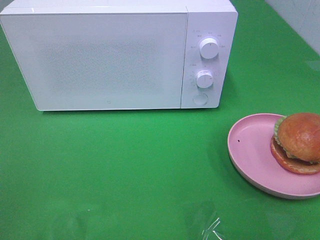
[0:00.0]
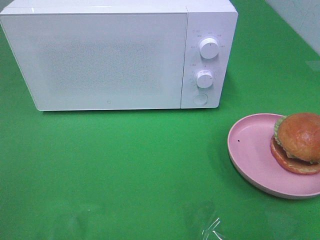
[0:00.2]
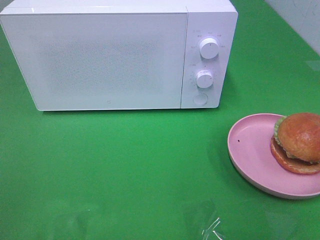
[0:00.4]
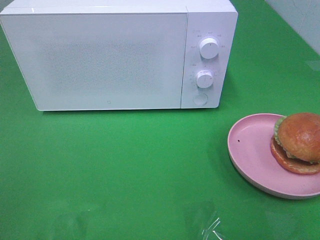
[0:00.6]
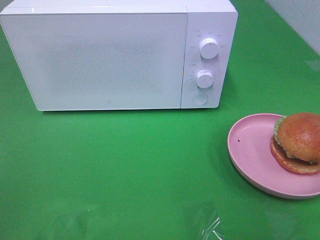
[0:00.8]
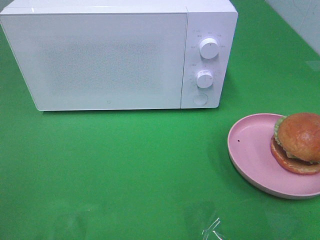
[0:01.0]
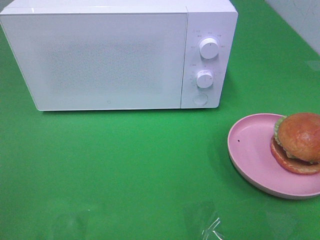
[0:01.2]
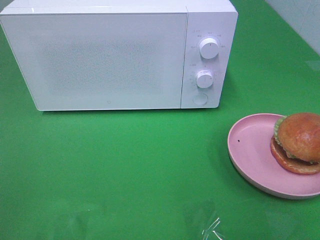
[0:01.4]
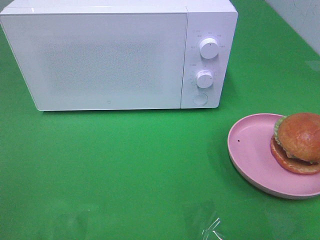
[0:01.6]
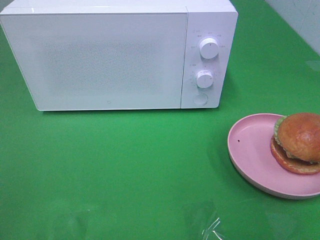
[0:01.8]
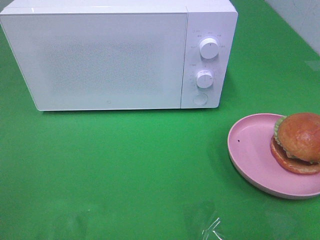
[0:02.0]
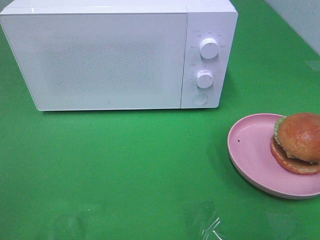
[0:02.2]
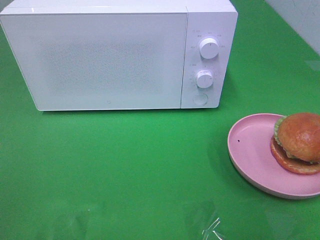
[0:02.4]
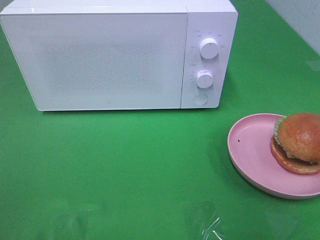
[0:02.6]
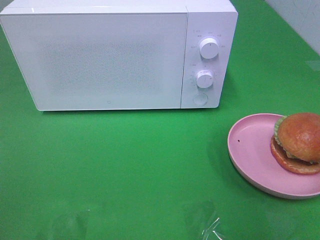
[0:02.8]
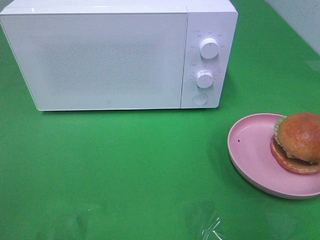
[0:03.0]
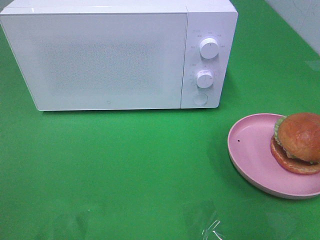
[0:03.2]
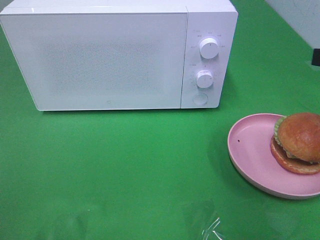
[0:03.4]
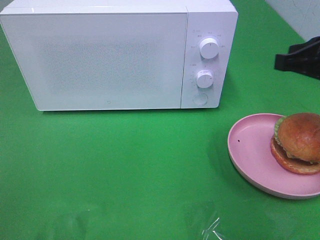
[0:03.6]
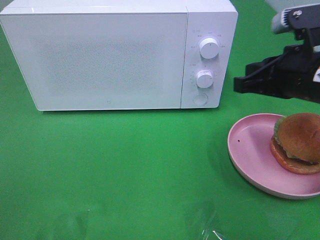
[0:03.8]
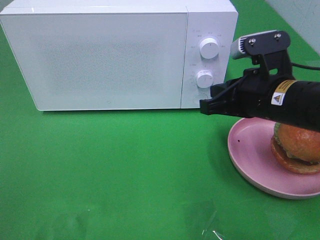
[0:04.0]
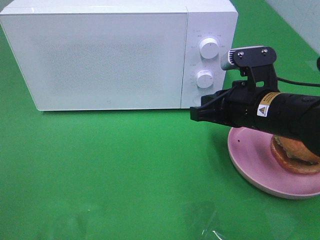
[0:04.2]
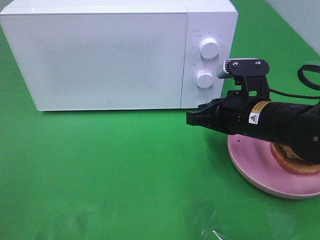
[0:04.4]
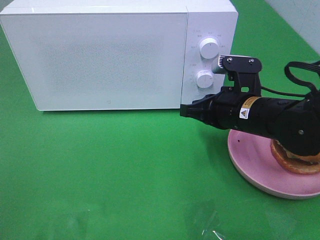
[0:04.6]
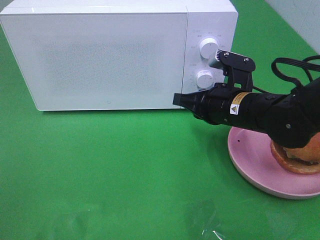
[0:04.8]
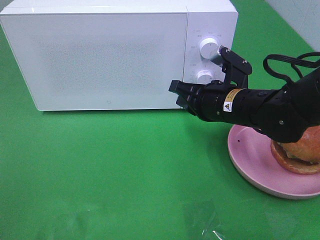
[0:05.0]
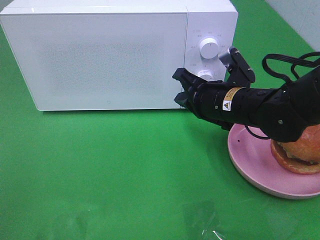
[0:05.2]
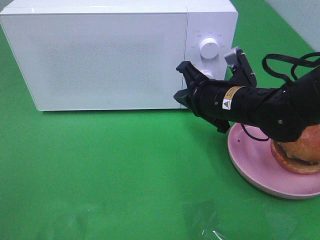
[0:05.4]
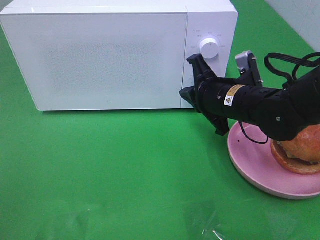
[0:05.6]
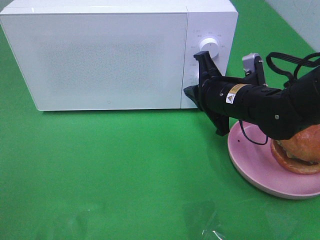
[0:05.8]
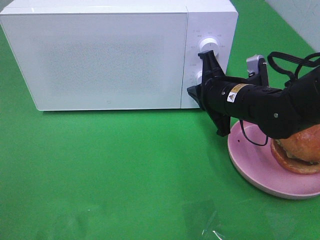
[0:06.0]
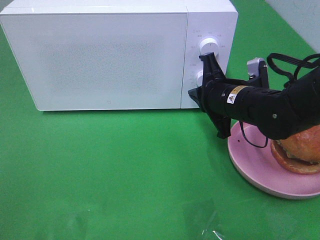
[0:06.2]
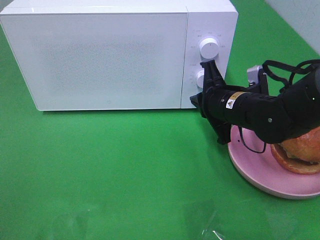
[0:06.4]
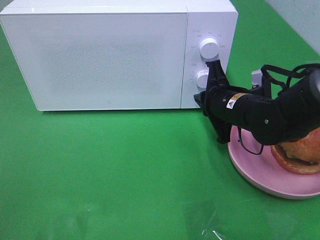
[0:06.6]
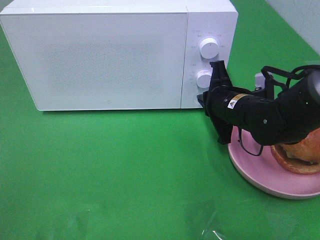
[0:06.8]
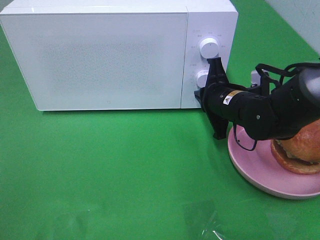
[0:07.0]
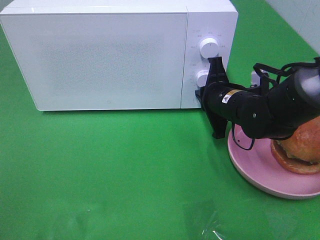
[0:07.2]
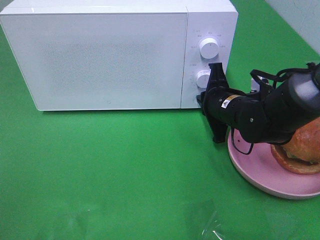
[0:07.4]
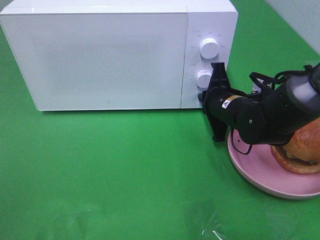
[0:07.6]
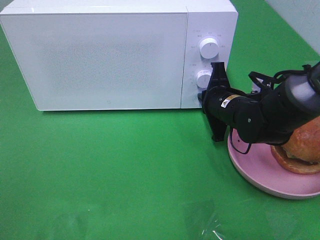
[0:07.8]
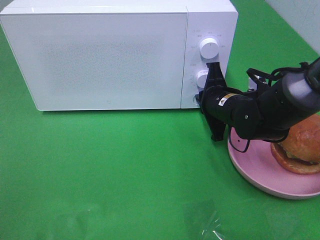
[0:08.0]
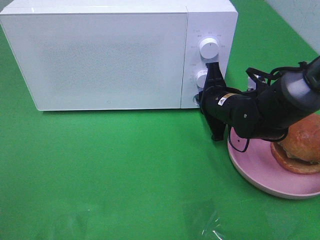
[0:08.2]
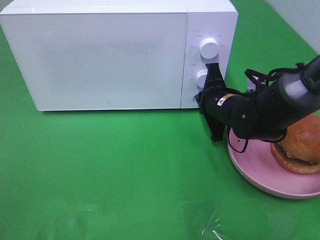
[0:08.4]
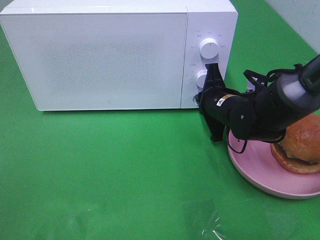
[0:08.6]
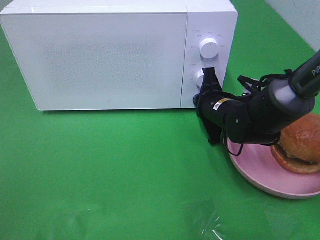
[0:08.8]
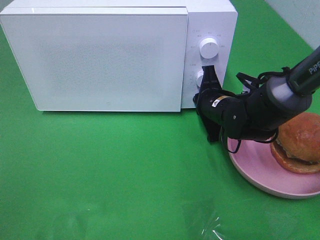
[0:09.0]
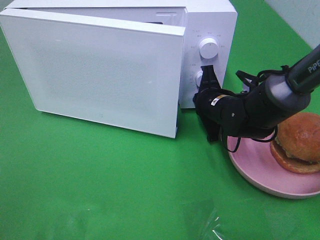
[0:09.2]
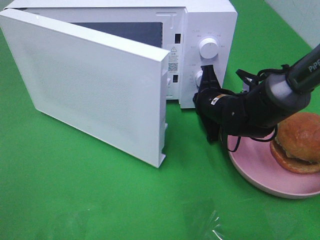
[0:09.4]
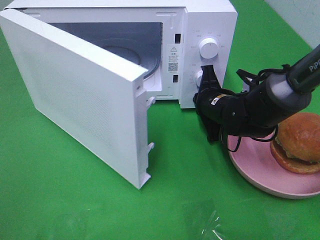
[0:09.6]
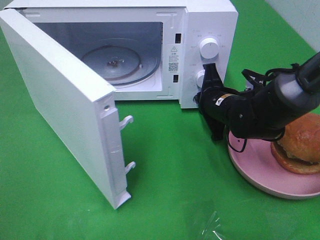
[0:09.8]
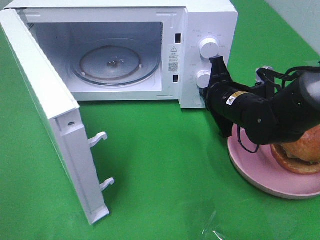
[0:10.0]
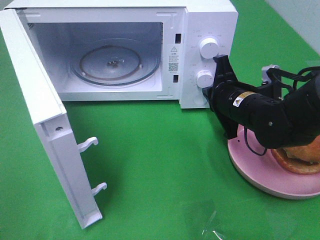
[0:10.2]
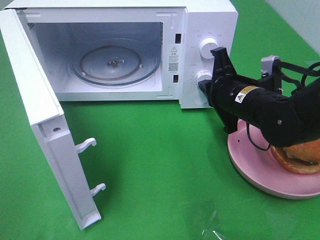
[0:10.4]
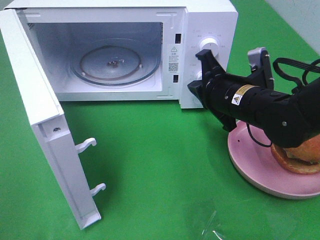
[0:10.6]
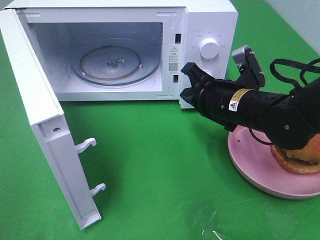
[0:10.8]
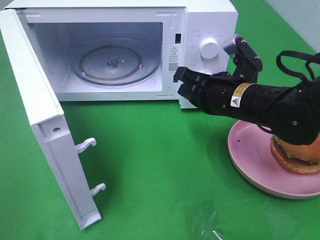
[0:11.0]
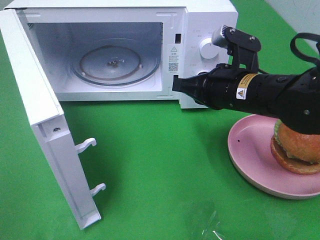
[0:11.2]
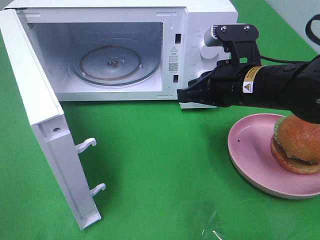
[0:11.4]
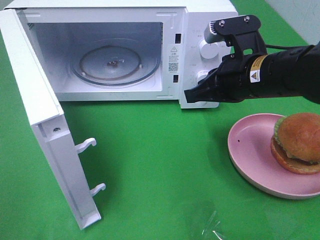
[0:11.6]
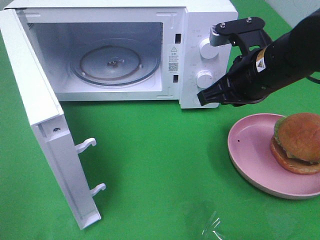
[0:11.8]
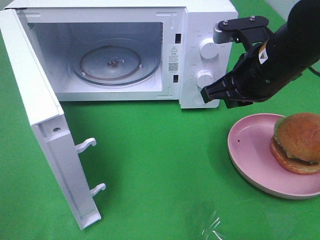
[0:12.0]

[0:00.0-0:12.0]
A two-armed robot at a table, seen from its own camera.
Task of the whole recording: Heat the burger.
Step, 0:00.0 to 0:10.4: Right hand: press the switch.
0:00.0 to 0:01.6: Both grippers stay about where they are.
0:03.0 to 0:04.4: The right gripper moves downward, to the left and forward, roughly 25 cm.
0:04.4 to 0:06.0: The right gripper moves about 5 cm.
0:06.0 to 0:07.6: The grippers stay close to where they were, moving slightly.
0:07.6 to 0:09.0: The grippers move only a little.
0:09.0 to 0:10.4: The right gripper travels upward and backward by roughly 10 cm.
0:10.4 to 0:12.0: The right gripper is displaced upward by roughly 10 cm.

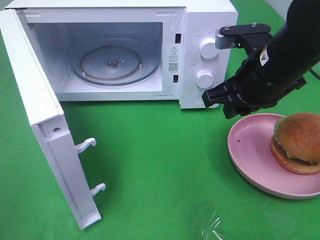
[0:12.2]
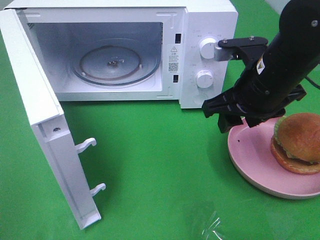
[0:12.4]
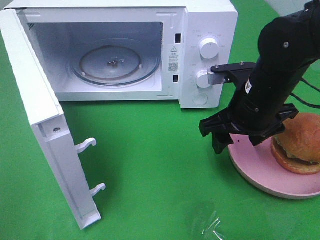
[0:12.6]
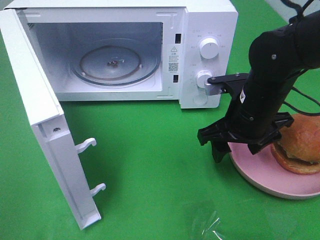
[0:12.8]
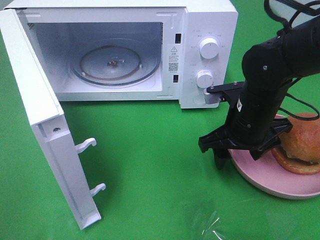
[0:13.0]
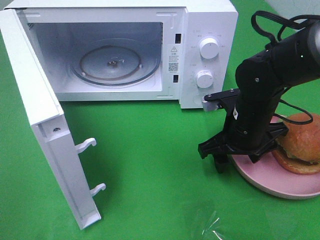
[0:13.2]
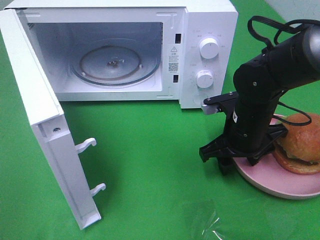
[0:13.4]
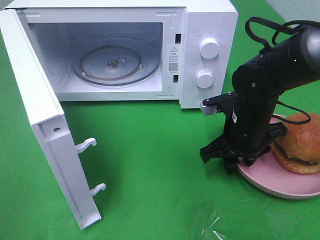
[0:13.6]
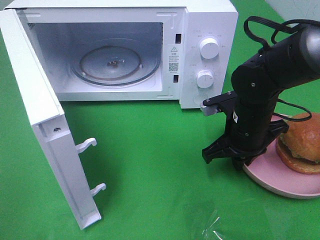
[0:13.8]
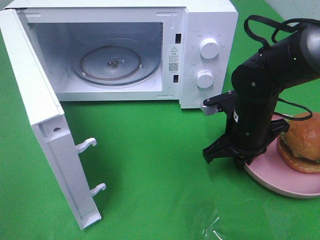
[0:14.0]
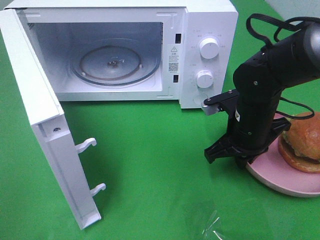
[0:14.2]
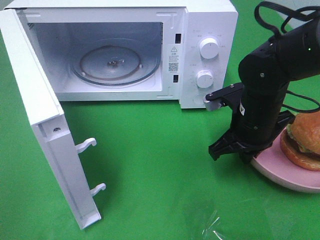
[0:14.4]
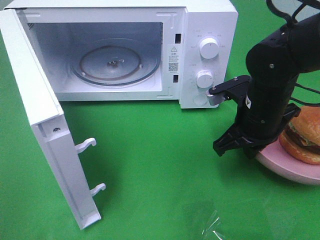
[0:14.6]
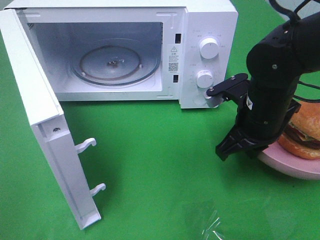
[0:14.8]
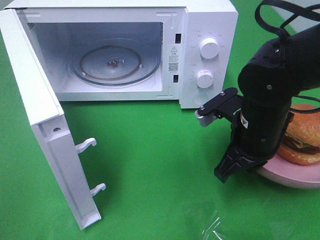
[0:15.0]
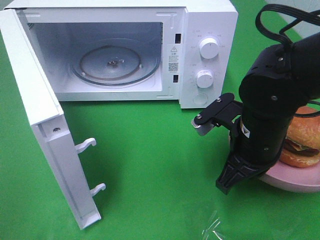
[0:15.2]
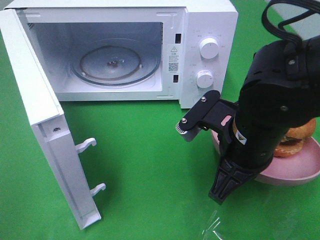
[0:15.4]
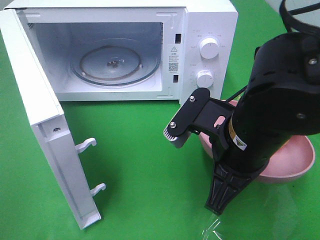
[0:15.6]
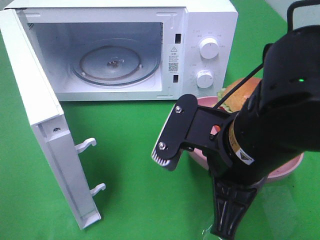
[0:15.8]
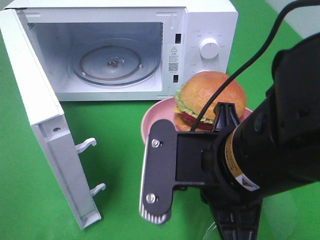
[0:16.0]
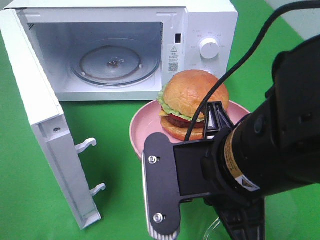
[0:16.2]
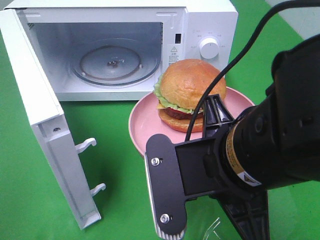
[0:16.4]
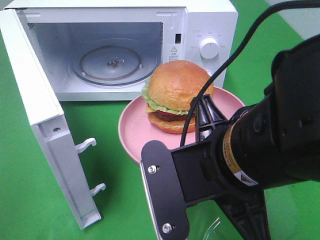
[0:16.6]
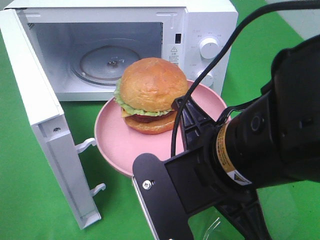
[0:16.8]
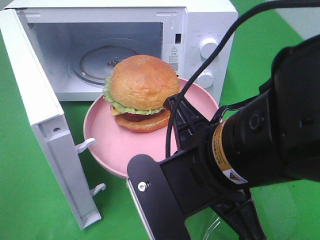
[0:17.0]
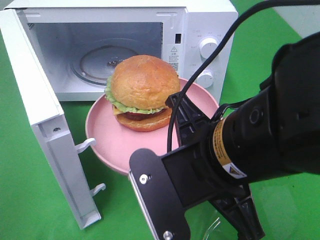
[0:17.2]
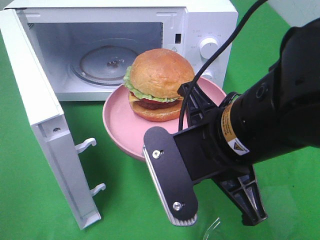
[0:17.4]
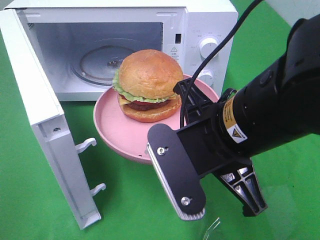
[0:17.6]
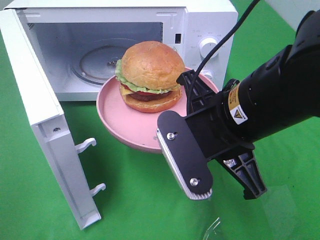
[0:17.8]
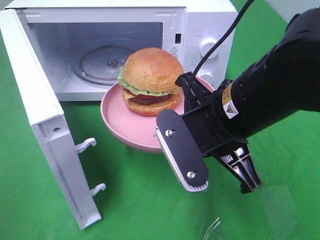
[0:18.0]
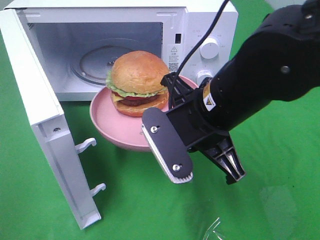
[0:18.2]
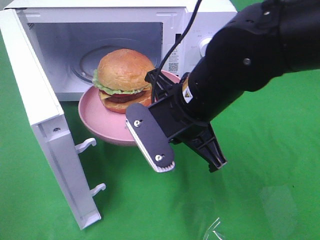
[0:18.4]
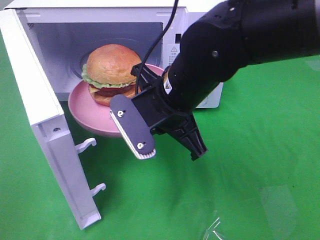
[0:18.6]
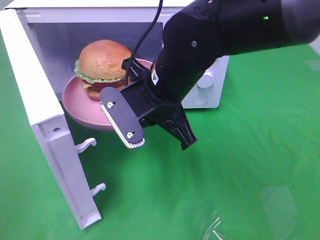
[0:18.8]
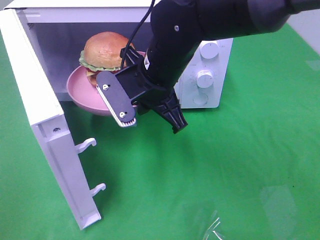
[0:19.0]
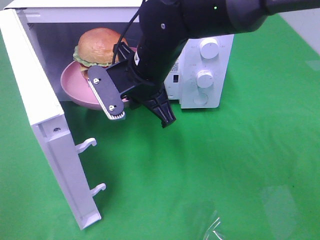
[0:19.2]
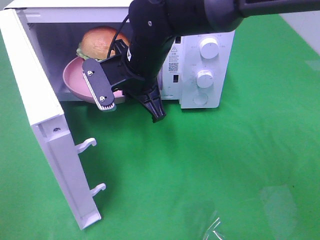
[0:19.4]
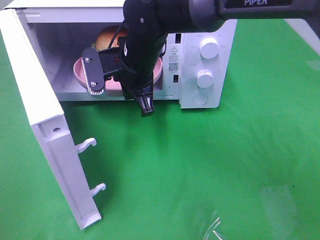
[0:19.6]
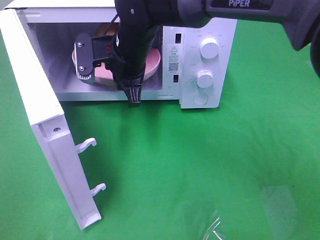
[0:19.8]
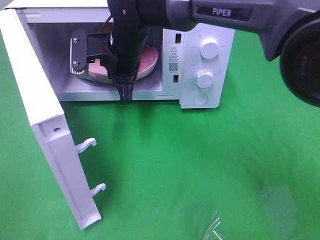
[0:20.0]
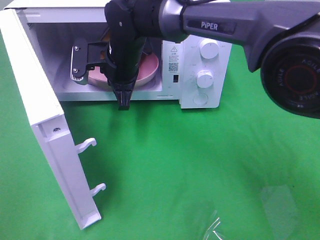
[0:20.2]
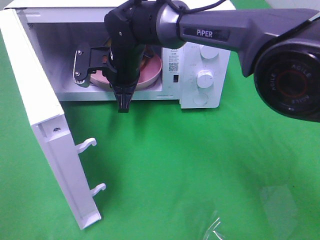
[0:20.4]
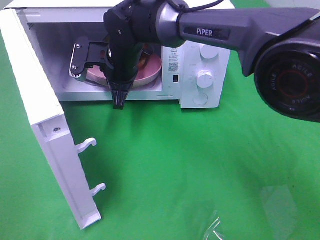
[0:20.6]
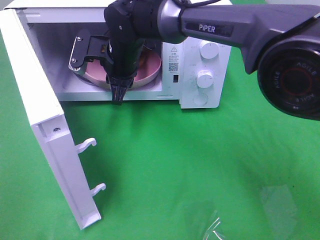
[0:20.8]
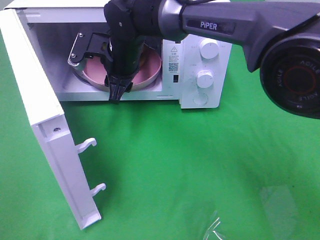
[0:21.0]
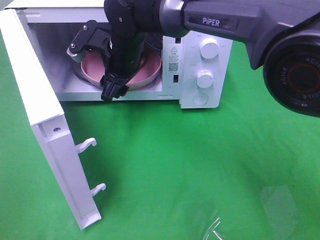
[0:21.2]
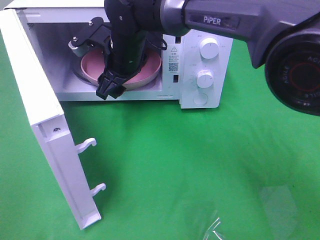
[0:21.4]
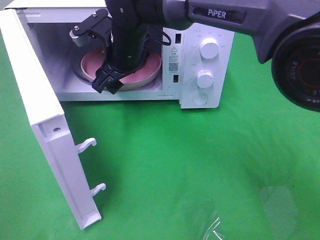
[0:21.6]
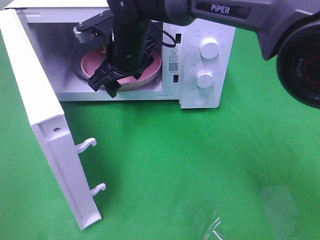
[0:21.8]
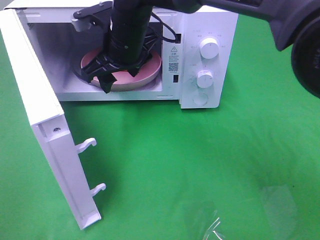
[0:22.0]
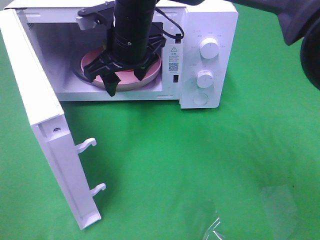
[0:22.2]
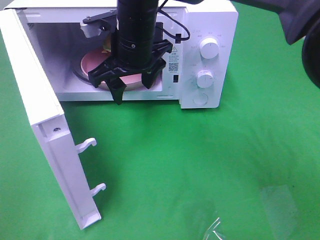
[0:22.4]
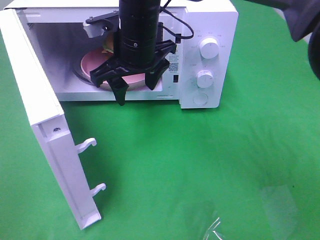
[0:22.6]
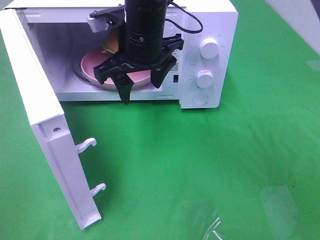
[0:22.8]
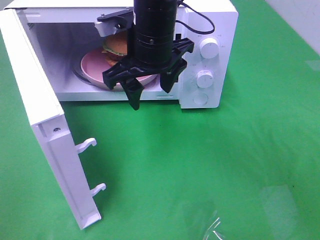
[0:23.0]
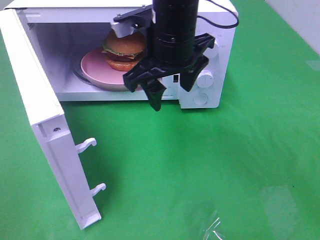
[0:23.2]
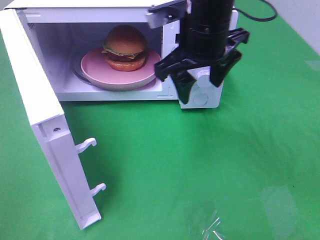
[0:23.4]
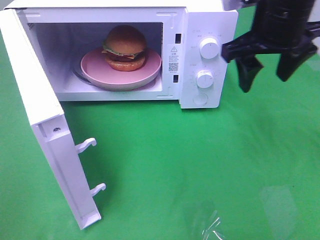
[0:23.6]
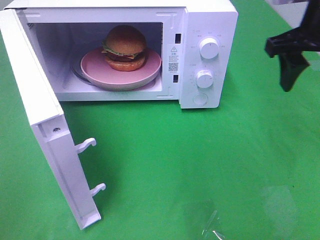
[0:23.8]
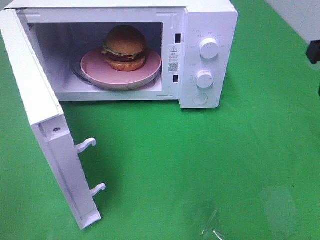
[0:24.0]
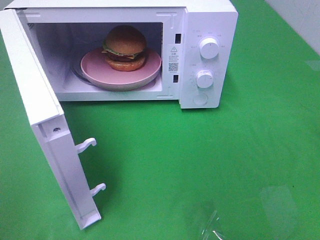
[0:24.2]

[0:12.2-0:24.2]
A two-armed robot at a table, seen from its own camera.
Task of the whole recording: Heat the burger.
Step, 0:12.2 to 0:14.0: Right hand: grab the plate with the hamburger.
Step, 0:14.2 to 0:21.4: Right hand: place the plate in the microwave.
0:12.2 to 0:13.8: The right gripper shifts some 10 cm downward, and opens and closes again.
0:13.8 to 0:15.2: The right gripper heads backward, covering approximately 5 cm.
0:15.2 to 0:16.6: The right gripper is displaced backward, upward and to the left by some 15 cm.
0:16.6 to 0:18.2: The right gripper travels forward by about 10 cm.
0:18.2 to 0:19.8: The right gripper travels forward and to the left by roughly 20 cm.
0:19.8 to 0:21.2: The right gripper opens up.
0:21.2 to 0:22.6: The right gripper travels upward by roughly 5 cm.
0:22.6 to 0:24.2: The right gripper is displaced to the right and backward by roughly 35 cm.
